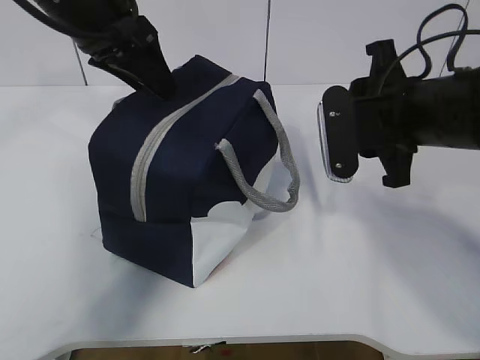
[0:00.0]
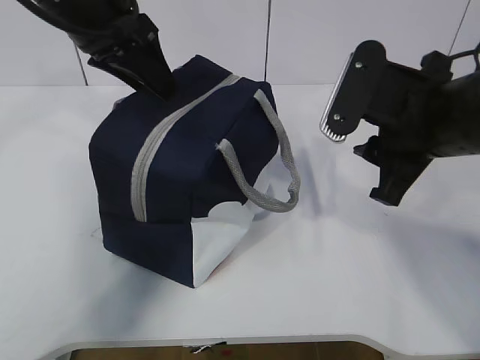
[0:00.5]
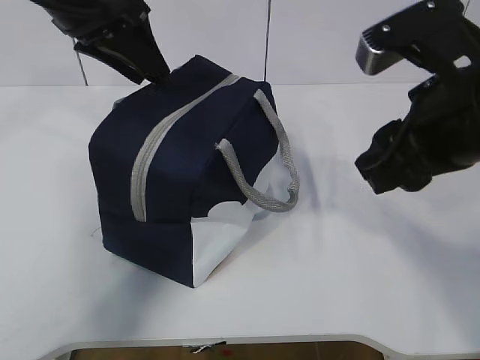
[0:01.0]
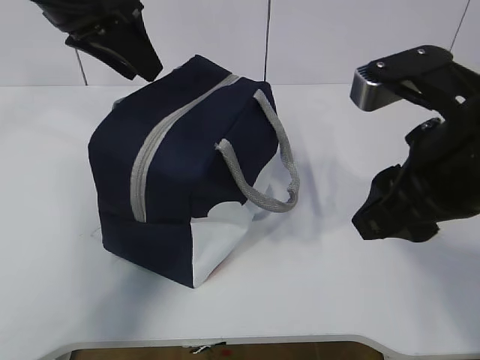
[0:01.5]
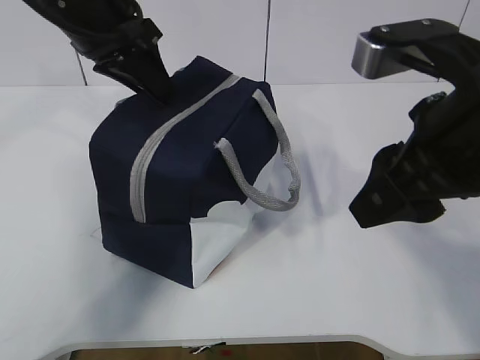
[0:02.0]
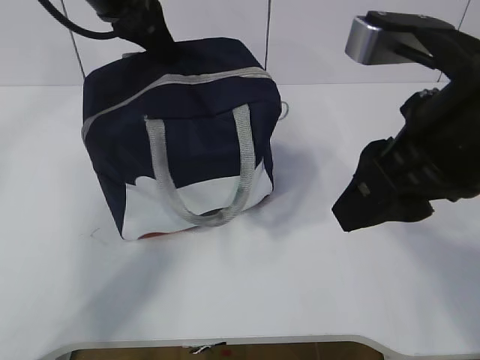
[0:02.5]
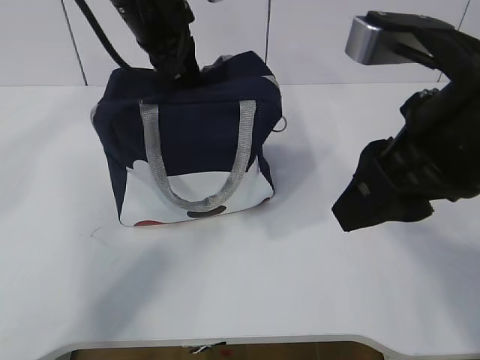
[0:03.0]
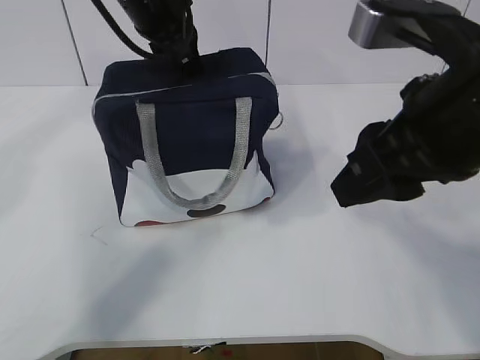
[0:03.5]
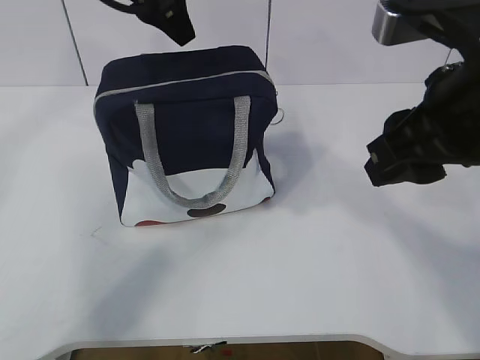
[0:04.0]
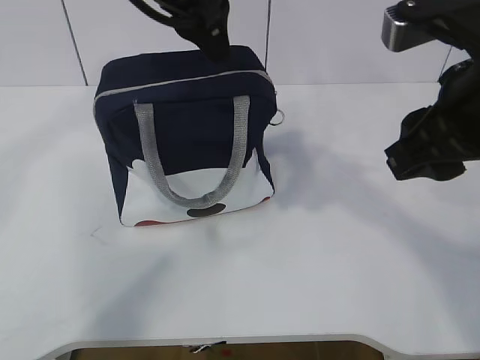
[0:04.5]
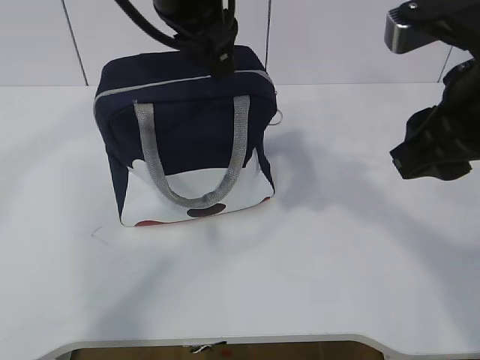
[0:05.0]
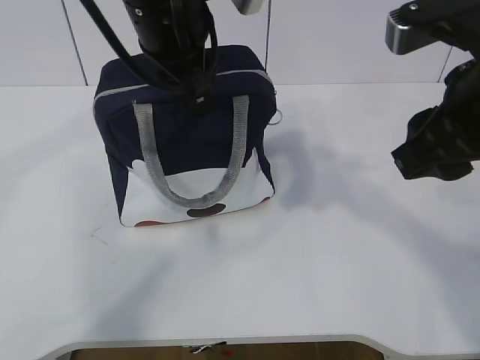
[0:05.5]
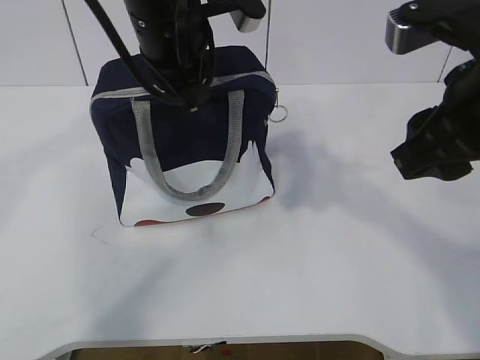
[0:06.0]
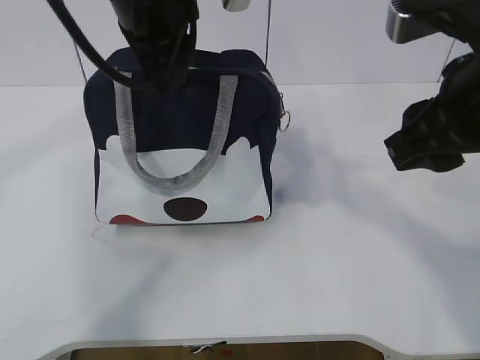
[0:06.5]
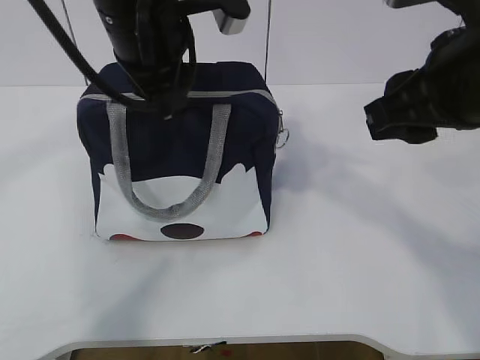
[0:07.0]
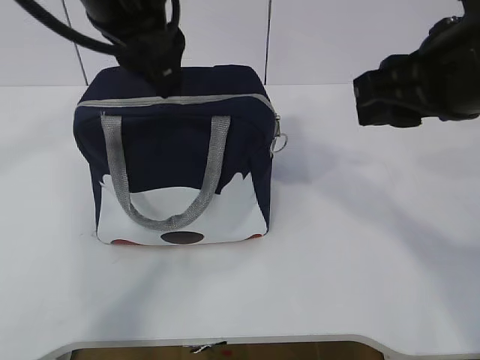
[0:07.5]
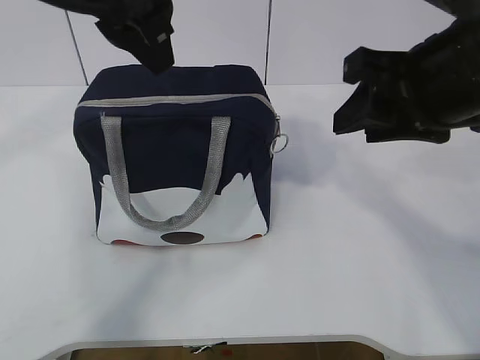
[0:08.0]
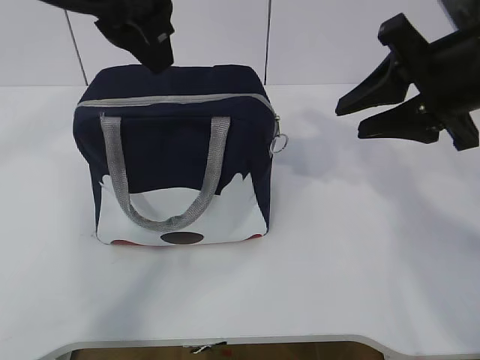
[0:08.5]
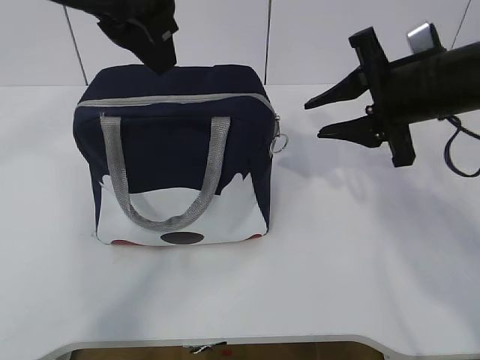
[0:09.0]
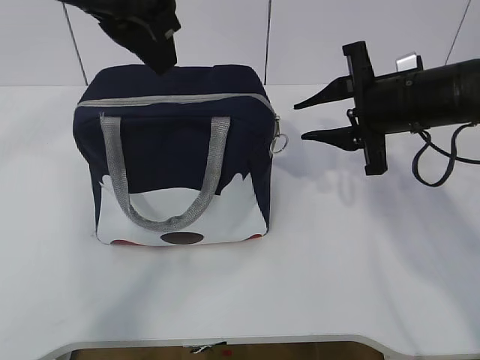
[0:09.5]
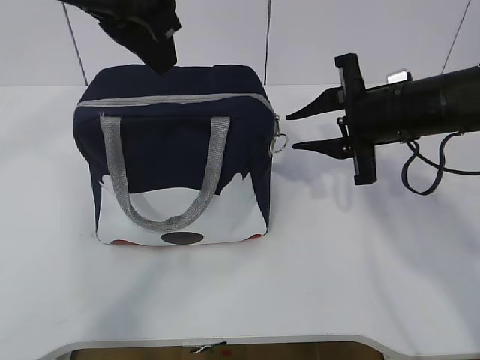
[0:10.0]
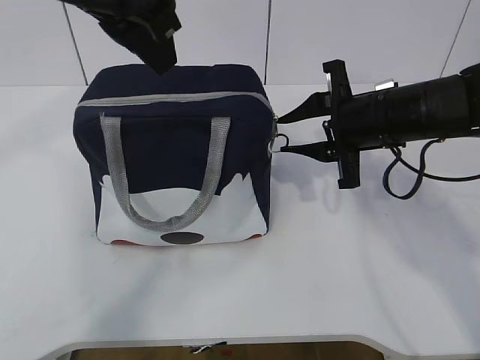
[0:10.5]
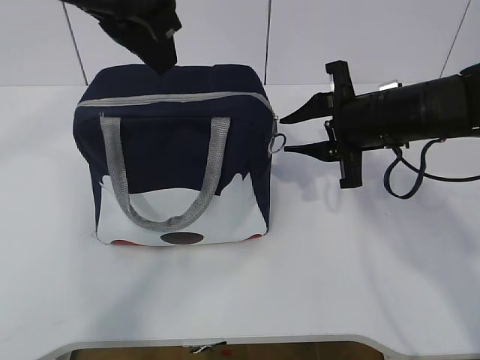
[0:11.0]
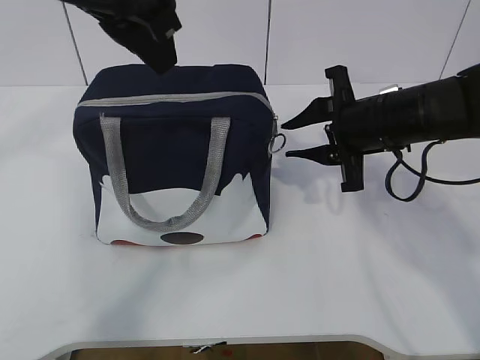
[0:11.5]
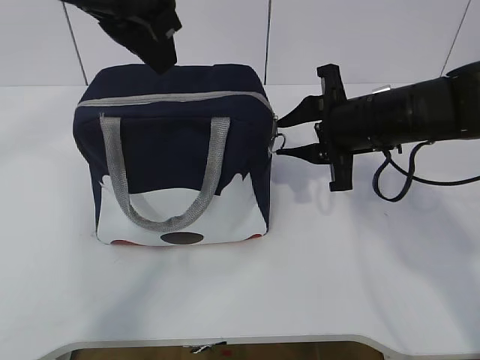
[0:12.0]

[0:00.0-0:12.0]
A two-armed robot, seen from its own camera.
0:00.0 to 0:02.0: The right gripper shifts approximately 10 cm backward and upward.
0:02.0 to 0:04.0: The left gripper heads upward, covering about 5 cm, and opens up.
0:04.0 to 0:06.0: The left gripper is displaced backward and downward by about 10 cm, and closes up.
0:06.0 to 0:08.0: The left gripper is displaced upward and backward by roughly 10 cm, and opens up.
0:08.0 to 0:10.0: The right gripper heads forward and downward, covering roughly 15 cm.
0:10.0 to 0:12.0: There are only small adjustments of the grippers.

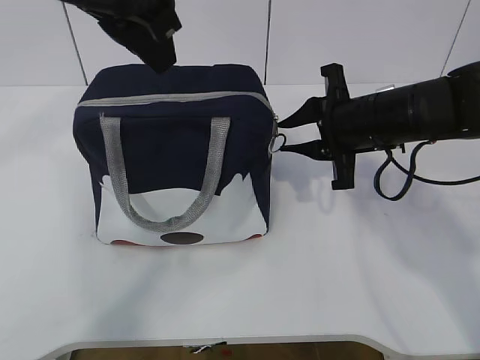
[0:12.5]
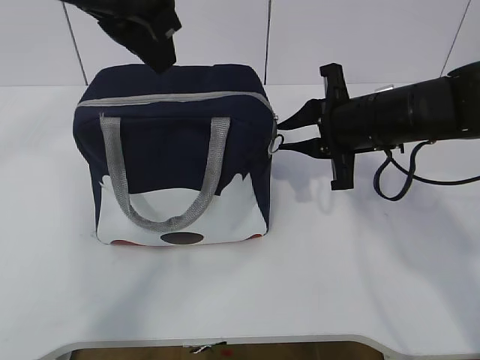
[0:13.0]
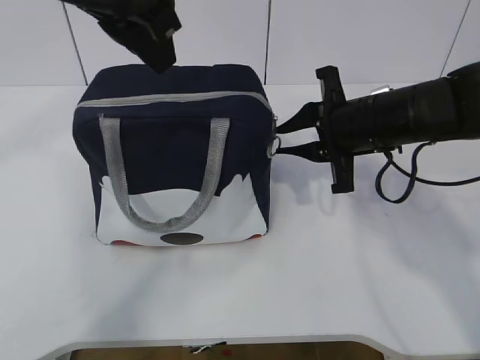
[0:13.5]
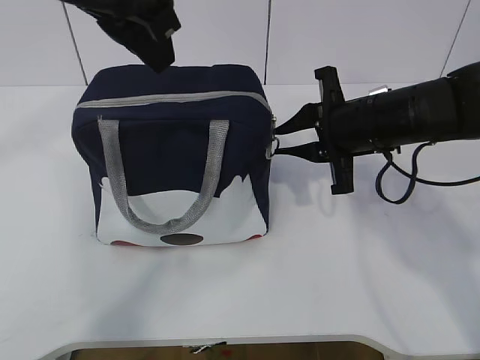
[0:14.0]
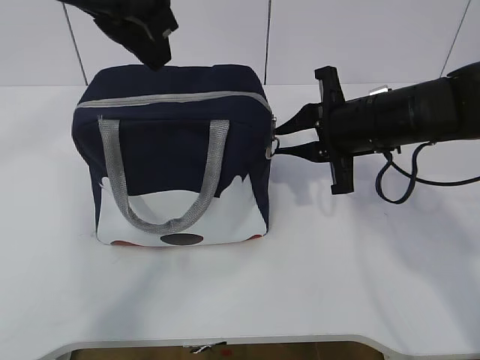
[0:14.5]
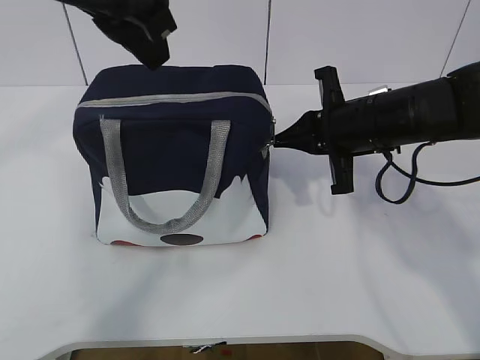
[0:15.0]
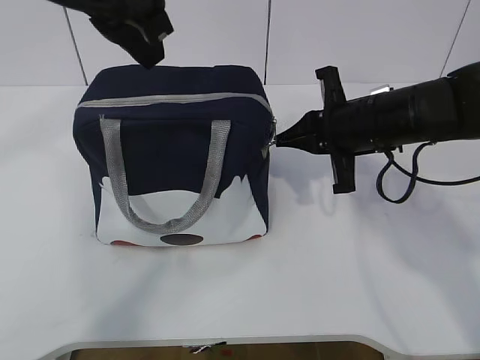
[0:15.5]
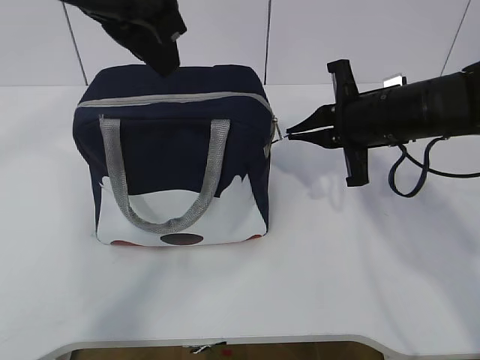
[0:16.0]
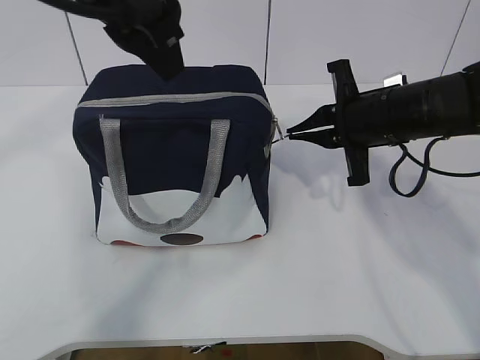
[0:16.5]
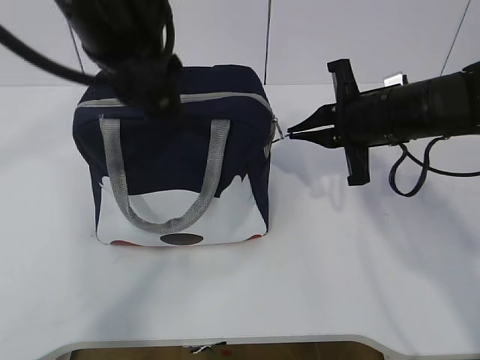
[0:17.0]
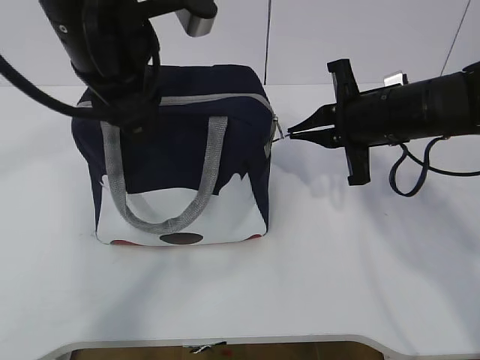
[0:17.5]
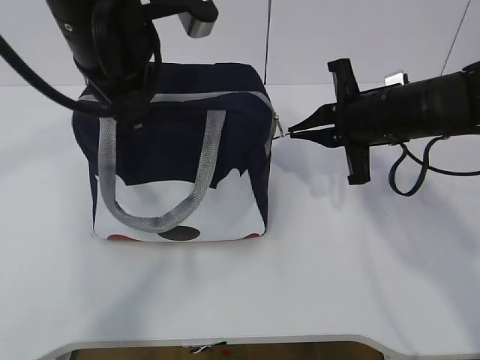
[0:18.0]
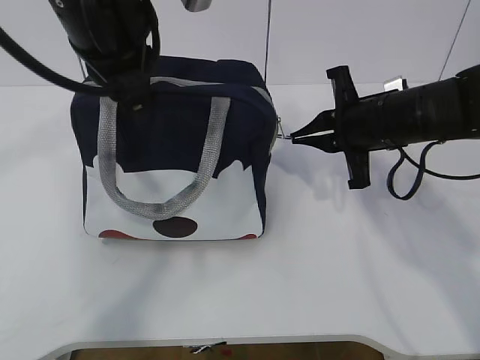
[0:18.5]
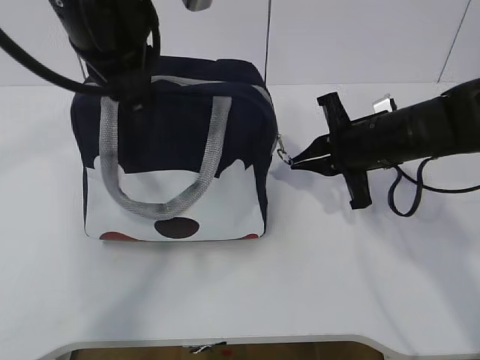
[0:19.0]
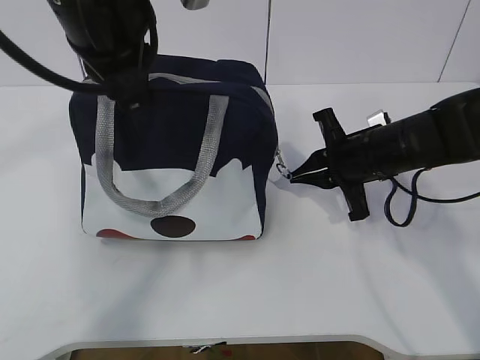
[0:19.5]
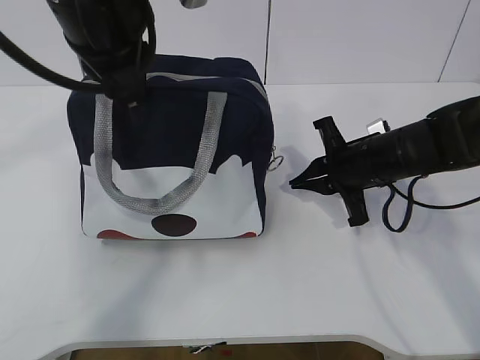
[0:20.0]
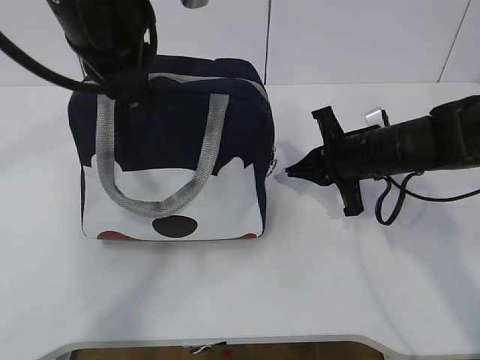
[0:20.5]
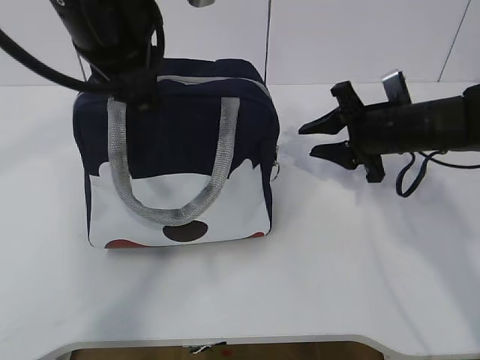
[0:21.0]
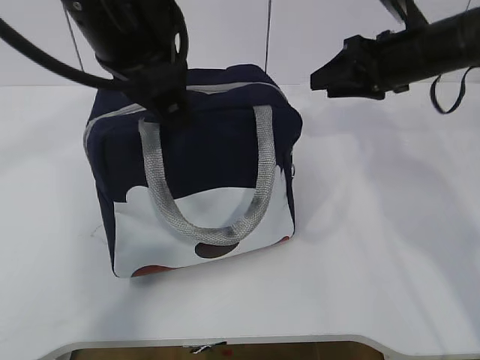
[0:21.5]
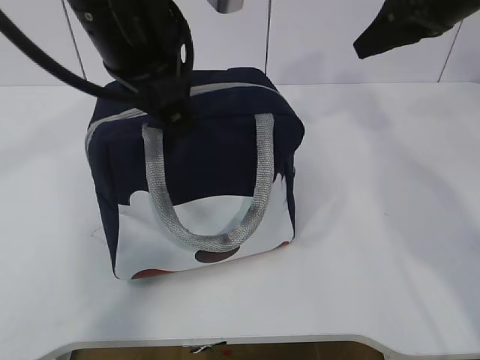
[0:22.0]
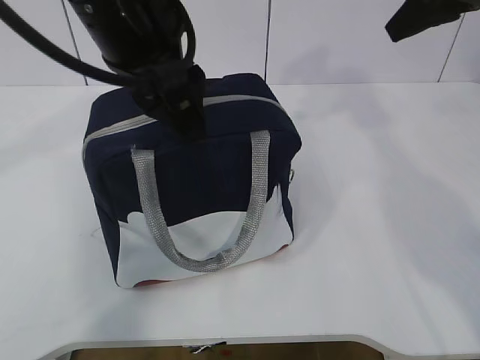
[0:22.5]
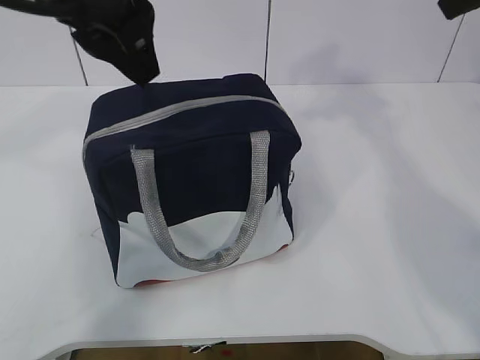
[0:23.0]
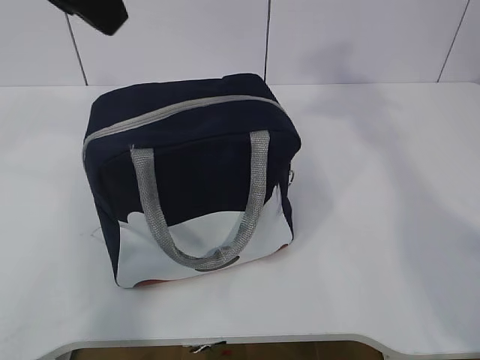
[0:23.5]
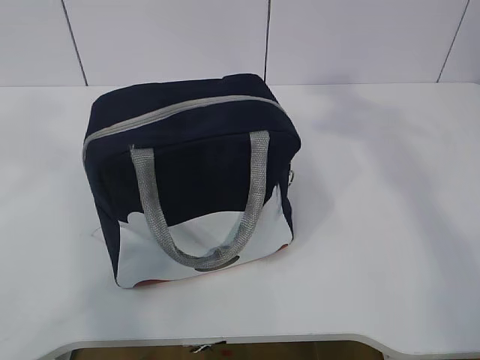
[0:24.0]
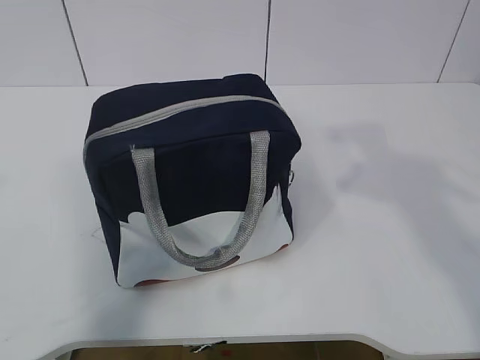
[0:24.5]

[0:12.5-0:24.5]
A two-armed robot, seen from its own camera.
Step, 0:12.5 to 0:23.0: zip up the zipper to close the bag.
0:12.5 to 0:14.5: Both grippers stay put.
0:14.5 to 0:16.5: The right gripper closes its fingers.
0:16.5 to 0:18.5: The left gripper closes its fingers.
0:18.5 to 0:20.5: The right gripper travels downward by roughly 5 cm.
0:20.5 to 0:22.5: The left gripper opens up. The right gripper shifts roughly 25 cm upward, and opens up.
0:22.5 to 0:24.5: The left gripper moves to the left, backward and upward, some 30 cm; the right gripper heads backward, covering roughly 25 cm.

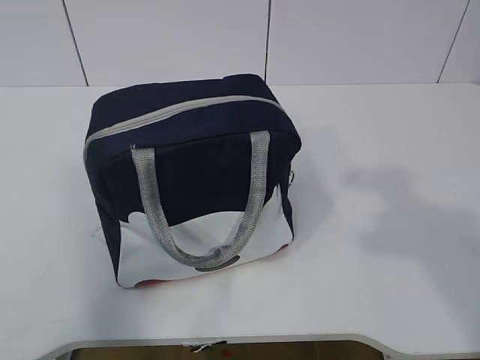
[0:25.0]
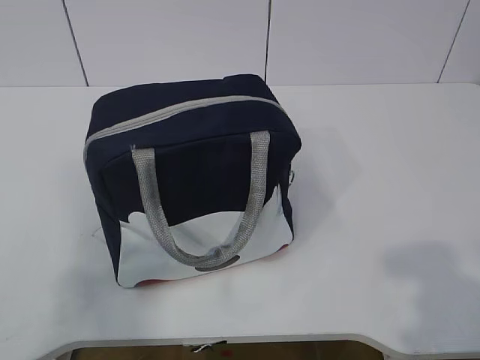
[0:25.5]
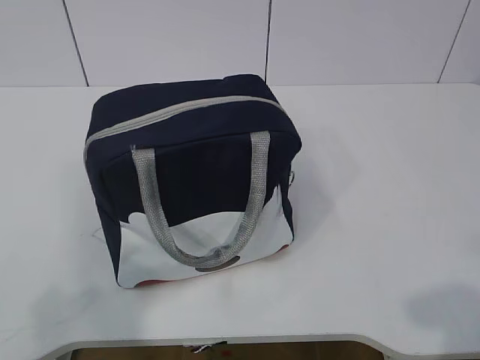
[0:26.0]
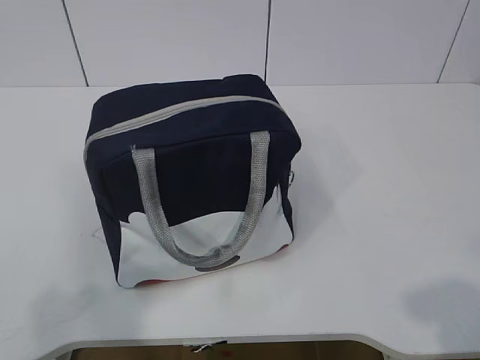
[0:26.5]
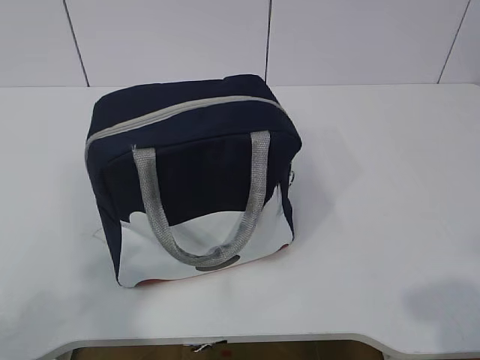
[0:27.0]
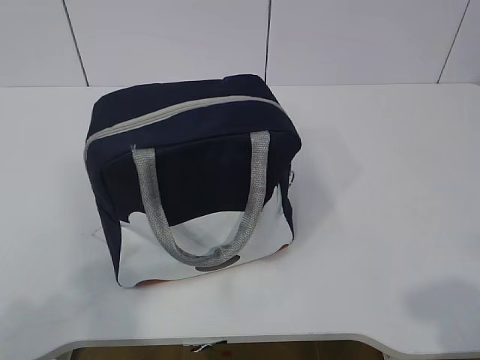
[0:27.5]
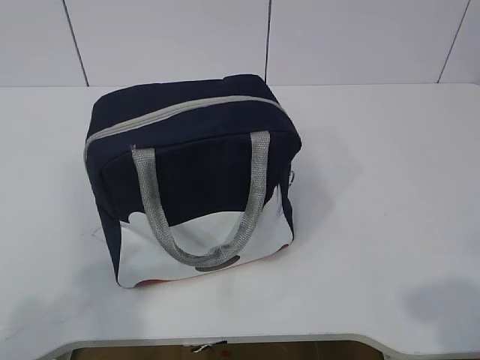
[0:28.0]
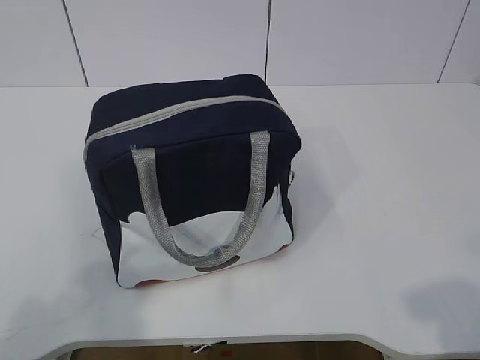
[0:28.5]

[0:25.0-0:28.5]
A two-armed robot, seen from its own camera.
0:25.0 to 0:27.0: The left gripper shifts roughly 10 cm downward. Meanwhile the right gripper goes about 15 cm downward and backward.
